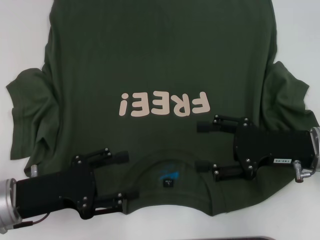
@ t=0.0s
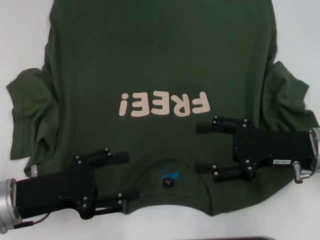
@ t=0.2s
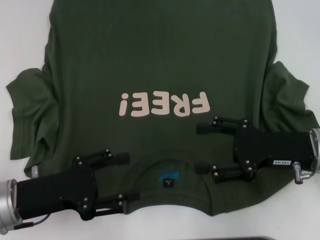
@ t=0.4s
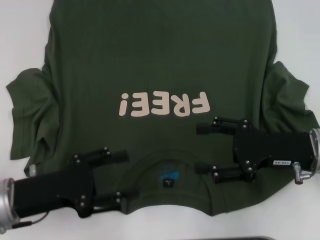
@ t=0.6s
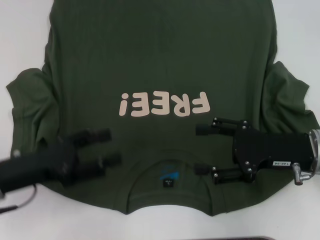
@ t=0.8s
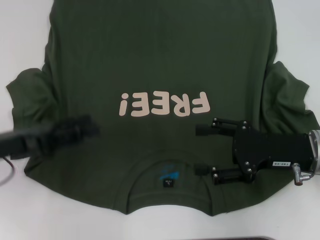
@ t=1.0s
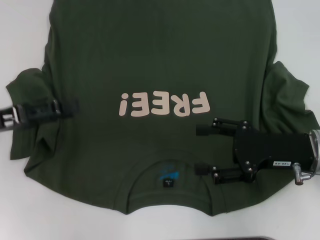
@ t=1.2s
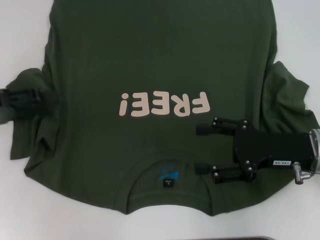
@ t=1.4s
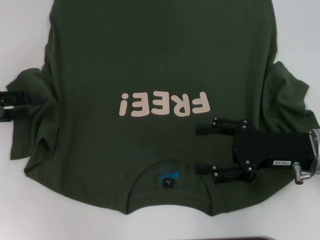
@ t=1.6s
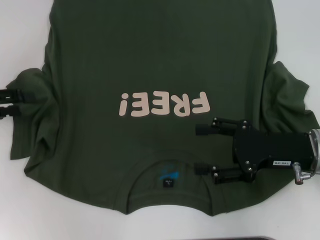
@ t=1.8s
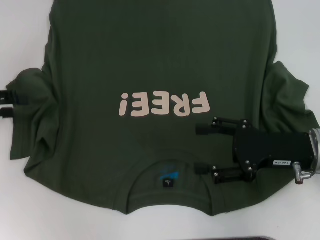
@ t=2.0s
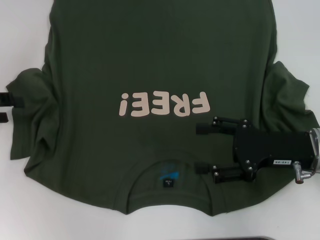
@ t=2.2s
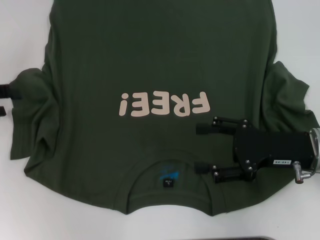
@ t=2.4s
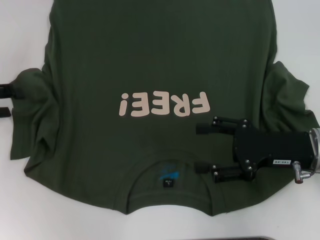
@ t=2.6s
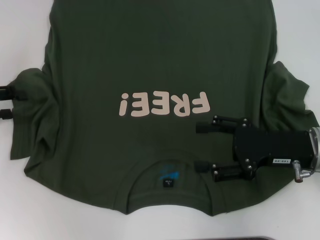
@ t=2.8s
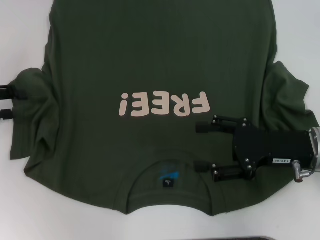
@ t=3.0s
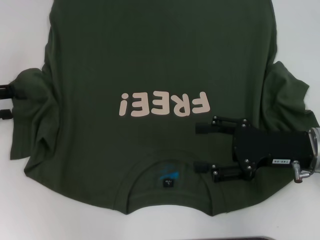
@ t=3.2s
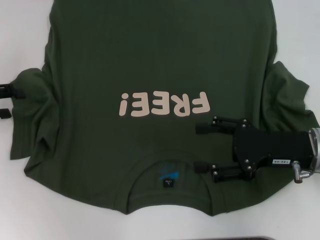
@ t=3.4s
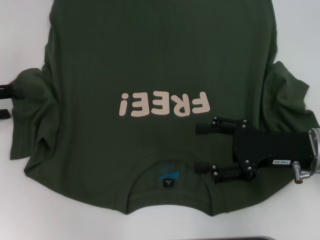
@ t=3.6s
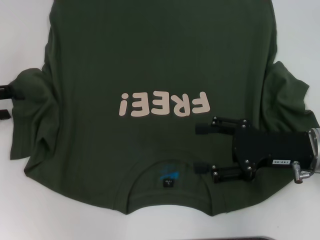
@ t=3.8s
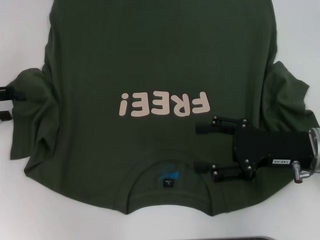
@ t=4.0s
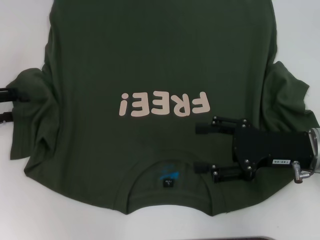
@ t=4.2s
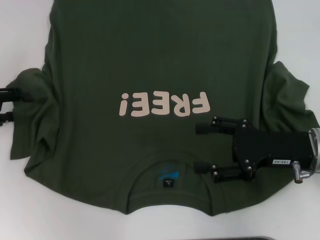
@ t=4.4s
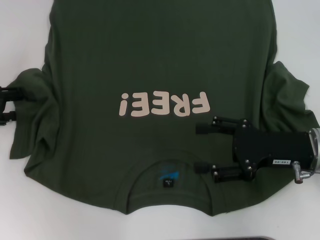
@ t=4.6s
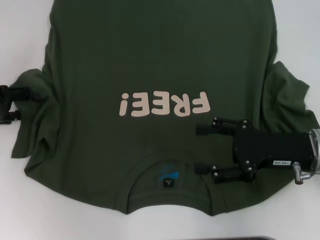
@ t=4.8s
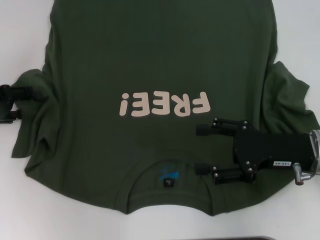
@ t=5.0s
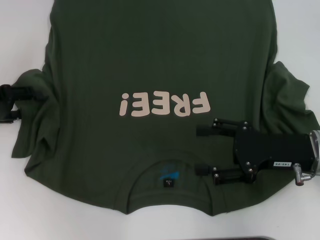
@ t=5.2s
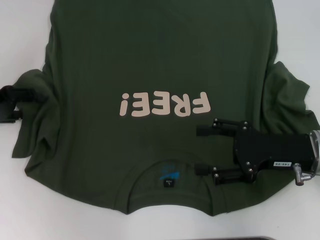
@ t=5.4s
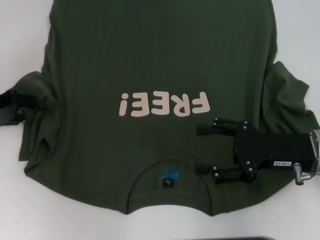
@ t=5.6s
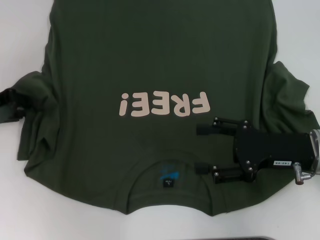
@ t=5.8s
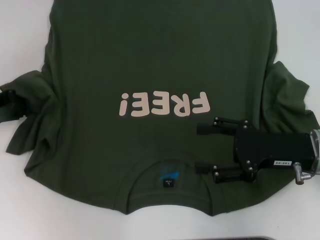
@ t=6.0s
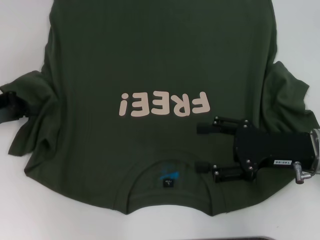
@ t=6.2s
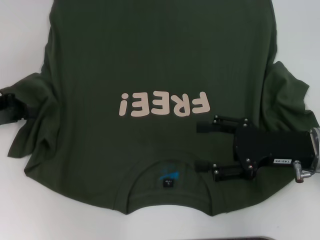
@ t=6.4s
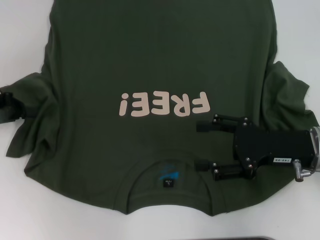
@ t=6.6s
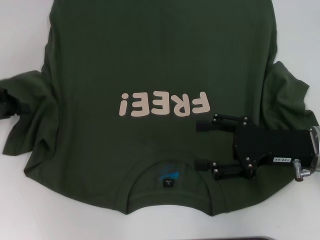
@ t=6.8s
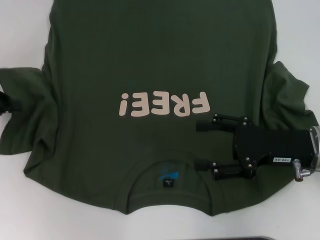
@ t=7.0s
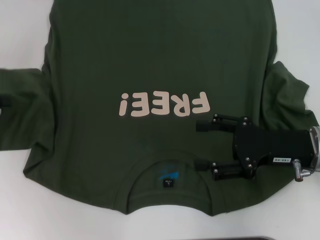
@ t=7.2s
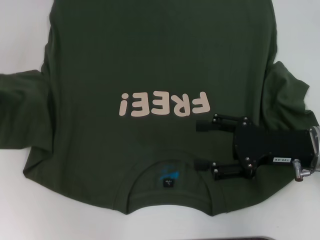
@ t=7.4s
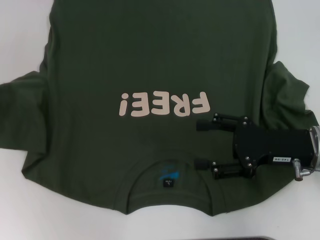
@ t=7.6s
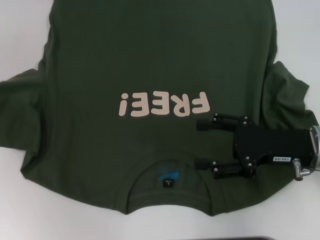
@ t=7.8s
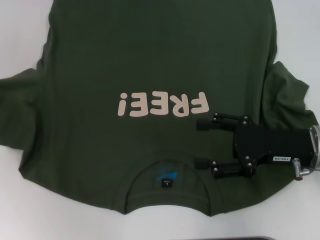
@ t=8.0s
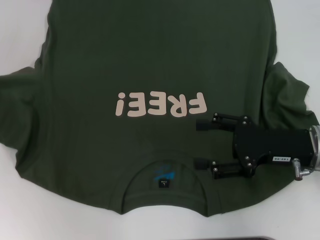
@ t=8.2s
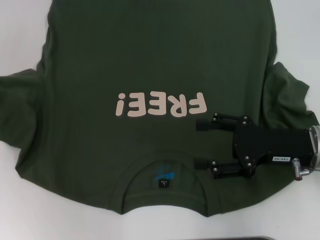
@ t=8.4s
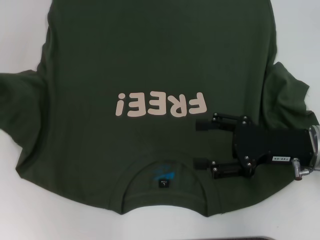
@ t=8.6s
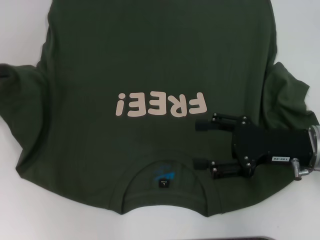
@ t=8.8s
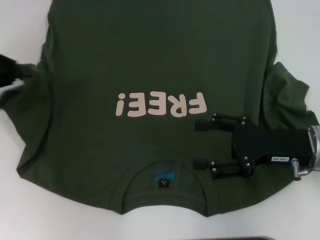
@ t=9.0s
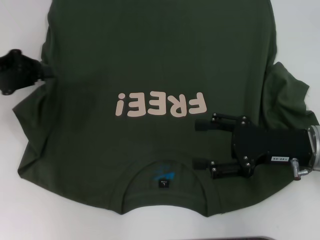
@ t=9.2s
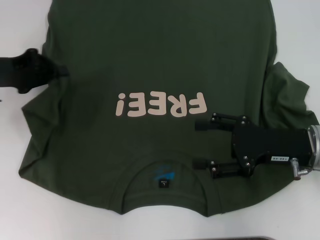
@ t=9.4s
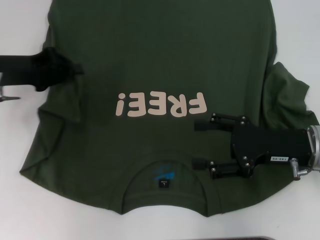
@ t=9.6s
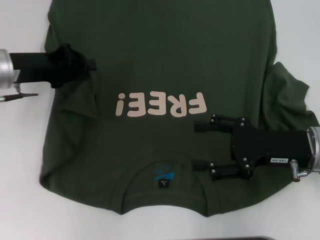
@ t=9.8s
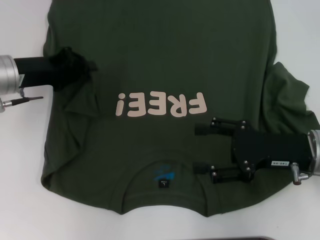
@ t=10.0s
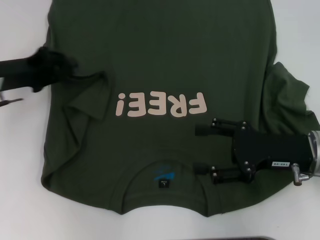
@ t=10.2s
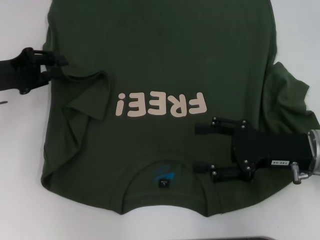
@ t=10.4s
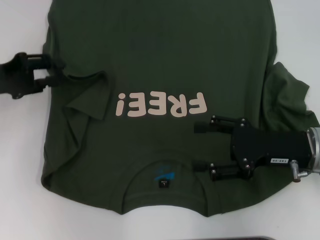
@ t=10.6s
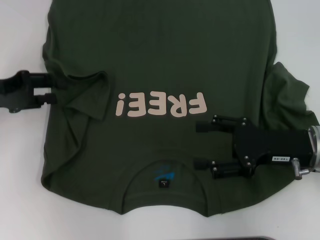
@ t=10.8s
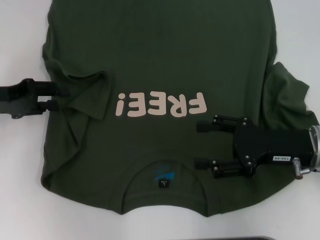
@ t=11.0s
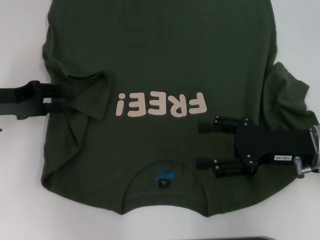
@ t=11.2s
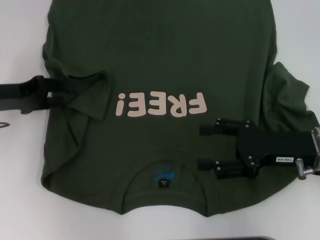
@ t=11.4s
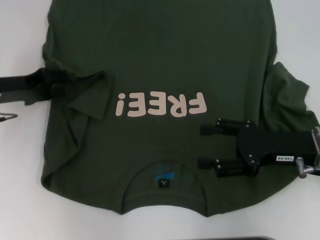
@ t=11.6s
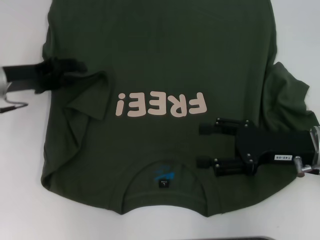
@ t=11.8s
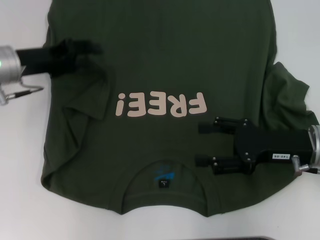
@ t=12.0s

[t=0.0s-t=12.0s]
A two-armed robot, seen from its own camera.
t=0.0s to t=1.6s: The left gripper moves to the left, forward and upward, some 15 cm.
t=1.6s to t=3.0s: The grippers stay close to where they were, moving slightly.
t=3.0s to t=4.4s: The two grippers keep their place.
t=4.4s to t=6.0s: The left gripper closes up.
t=6.0s to t=7.6s: The left gripper goes approximately 5 cm to the left, and closes.
t=7.6s to t=9.0s: The left gripper moves roughly 5 cm.
t=10.4s to t=12.0s: The left gripper is displaced to the right by roughly 5 cm, and opens its fingers.

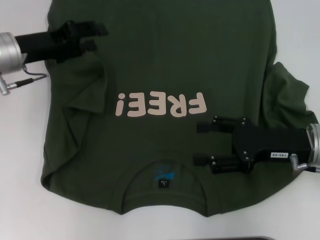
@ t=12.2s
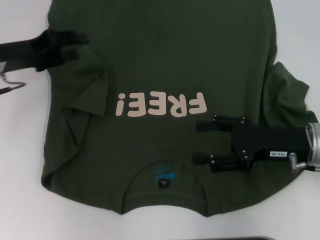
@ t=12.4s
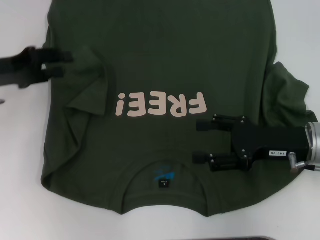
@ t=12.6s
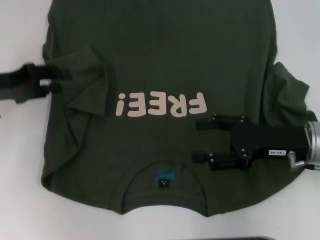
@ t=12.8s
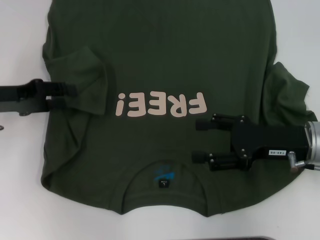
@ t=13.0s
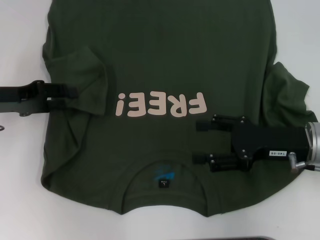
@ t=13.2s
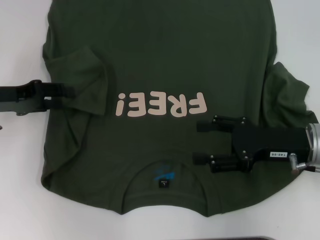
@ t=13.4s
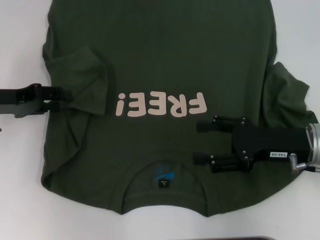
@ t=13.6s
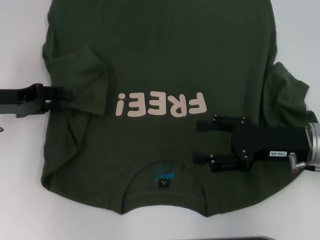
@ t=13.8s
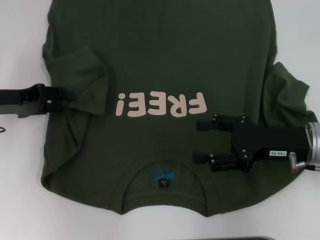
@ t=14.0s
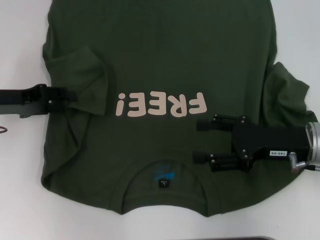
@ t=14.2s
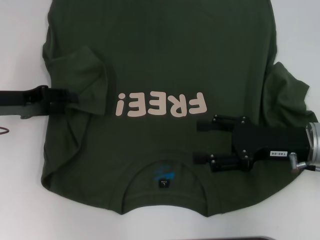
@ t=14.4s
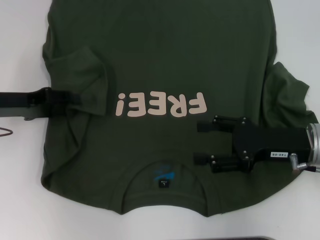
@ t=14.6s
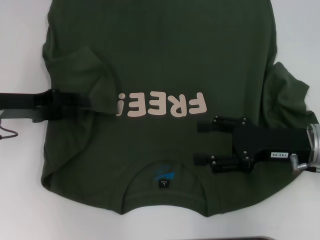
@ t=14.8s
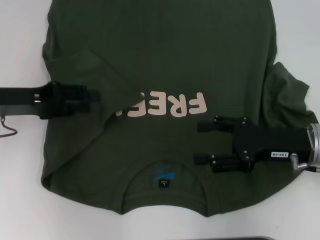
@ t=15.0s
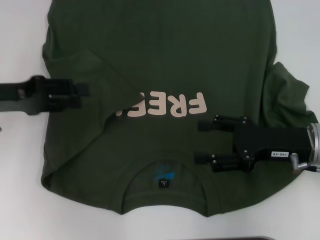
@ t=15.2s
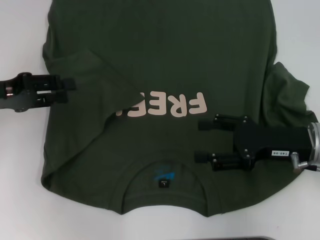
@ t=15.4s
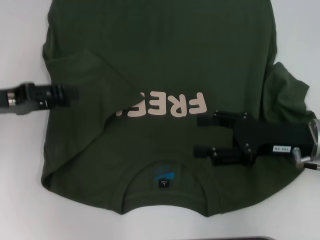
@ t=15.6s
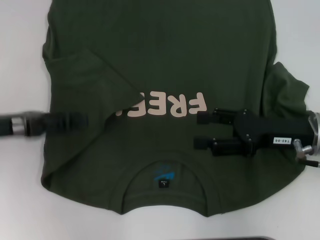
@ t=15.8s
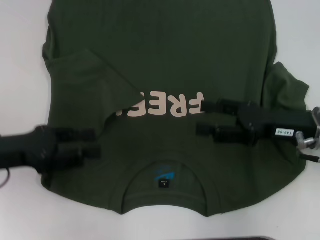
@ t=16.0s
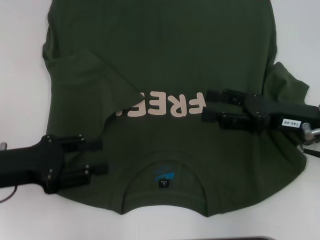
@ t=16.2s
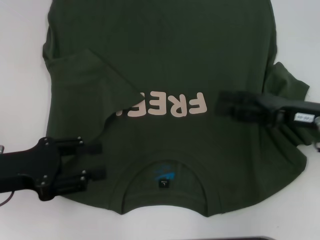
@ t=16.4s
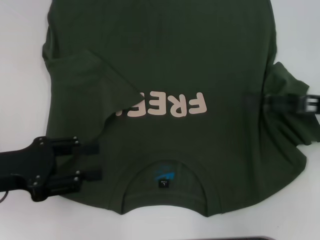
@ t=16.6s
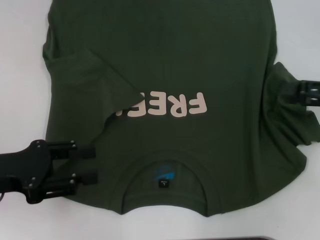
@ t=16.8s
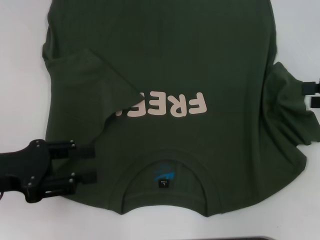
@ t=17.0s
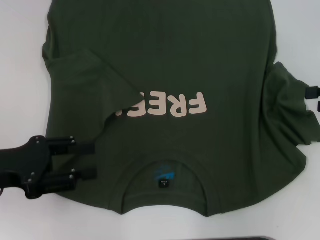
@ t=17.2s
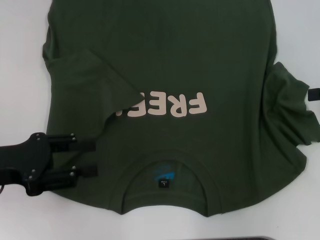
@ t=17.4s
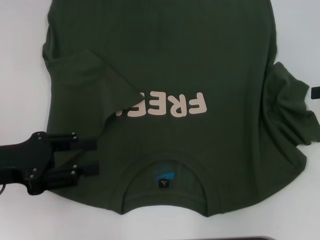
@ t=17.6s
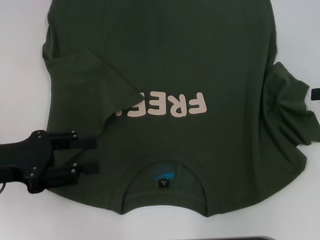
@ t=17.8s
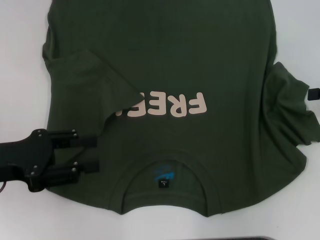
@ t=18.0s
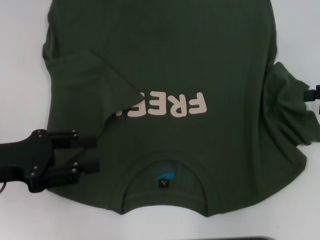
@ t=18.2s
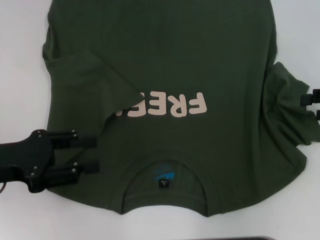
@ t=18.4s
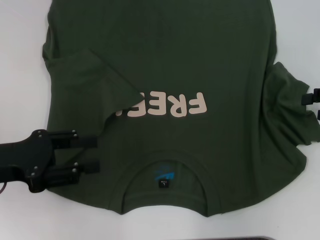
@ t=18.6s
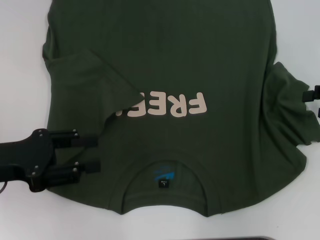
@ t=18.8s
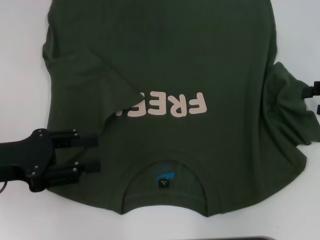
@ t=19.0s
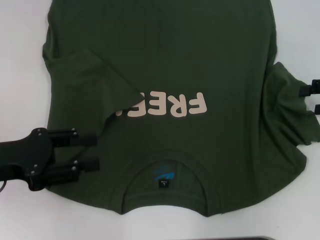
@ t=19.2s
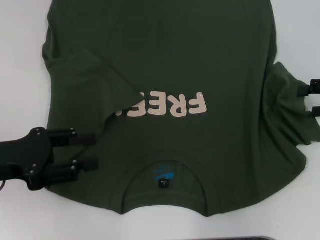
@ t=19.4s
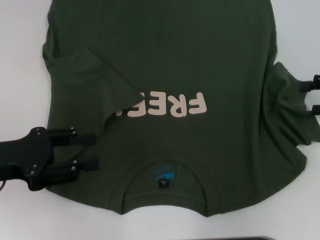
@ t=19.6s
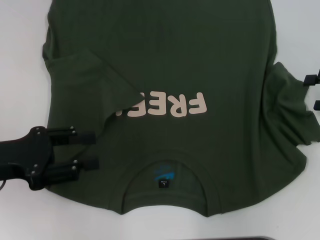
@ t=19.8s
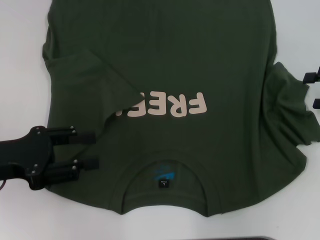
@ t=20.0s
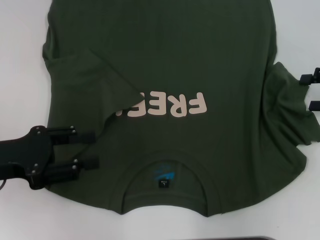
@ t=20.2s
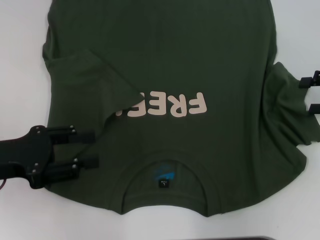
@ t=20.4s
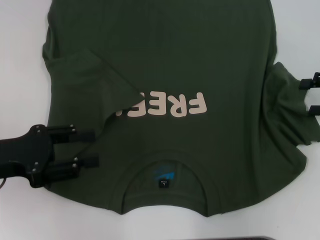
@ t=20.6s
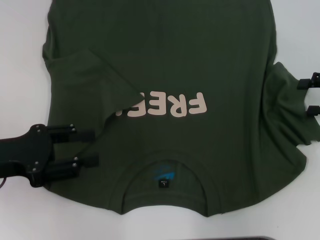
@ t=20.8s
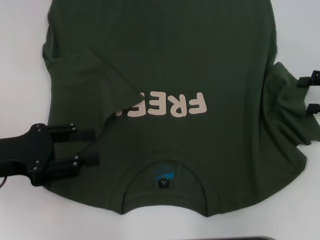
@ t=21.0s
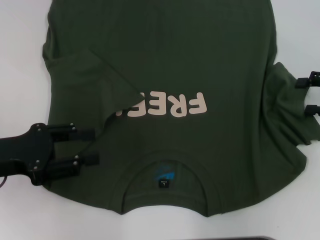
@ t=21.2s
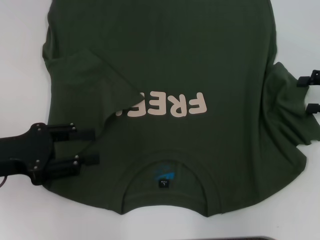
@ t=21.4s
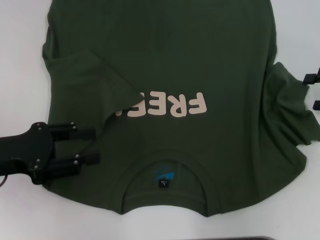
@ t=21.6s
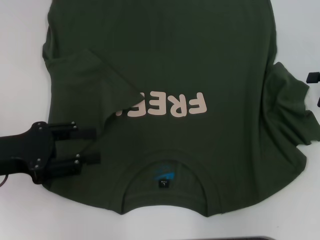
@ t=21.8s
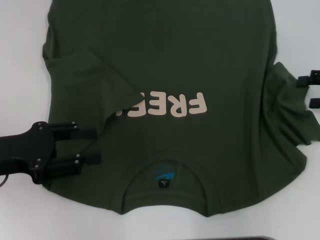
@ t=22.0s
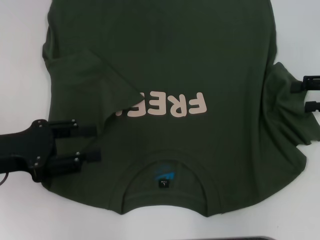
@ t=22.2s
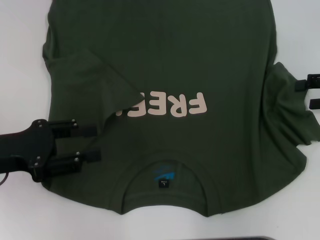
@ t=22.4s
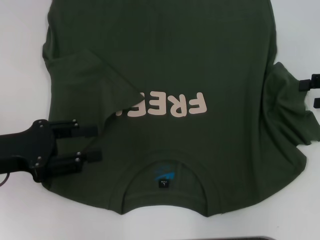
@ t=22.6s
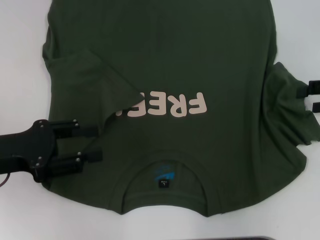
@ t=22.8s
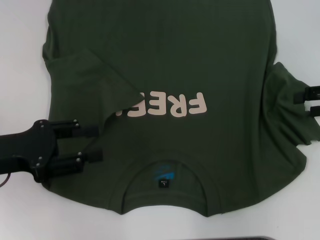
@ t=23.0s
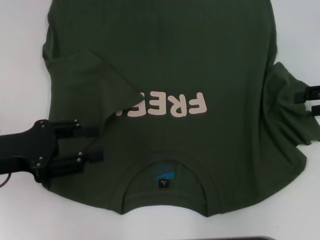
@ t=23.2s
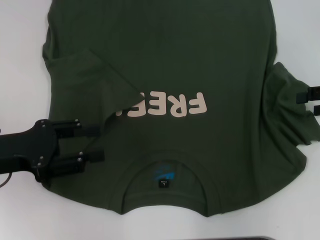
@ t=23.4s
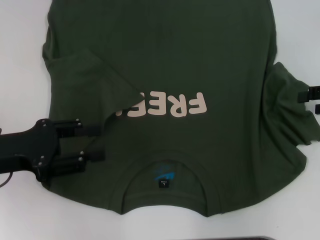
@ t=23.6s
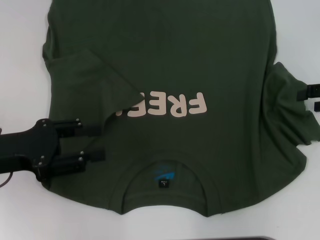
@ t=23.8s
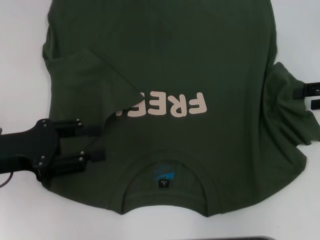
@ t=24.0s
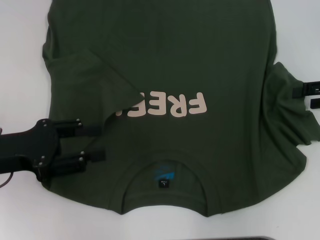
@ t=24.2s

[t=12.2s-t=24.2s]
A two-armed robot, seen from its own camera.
Step, t=12.2s to t=15.8s: Fold the bottom left sleeve with your left hand.
t=12.2s to t=13.8s: The left gripper goes approximately 5 cm to the left.
t=15.2s to t=16.6s: The left gripper goes some 10 cm backward, while the right gripper goes roughly 5 cm to the right.
t=16.6s to t=18.2s: The right gripper goes about 10 cm to the right.
t=18.2s to t=19.8s: There are only small adjustments of the grippers.
t=19.8s to t=22.6s: The grippers stay close to where they were, moving slightly.
t=22.6s to t=24.2s: The grippers make only small movements.
